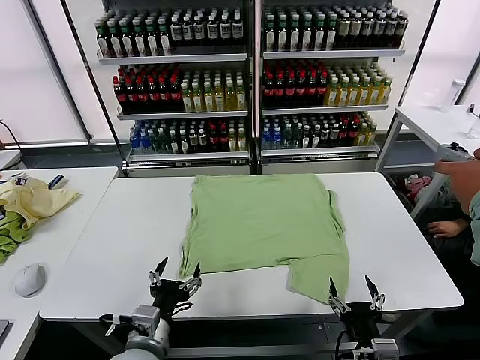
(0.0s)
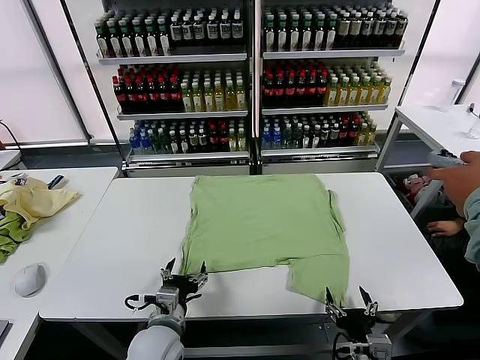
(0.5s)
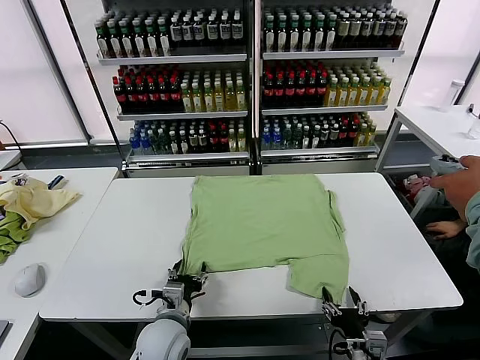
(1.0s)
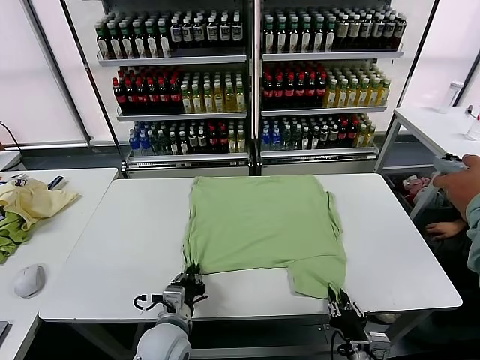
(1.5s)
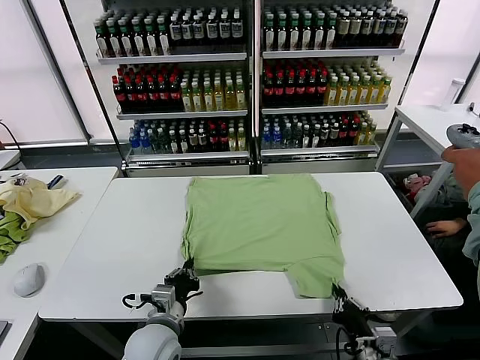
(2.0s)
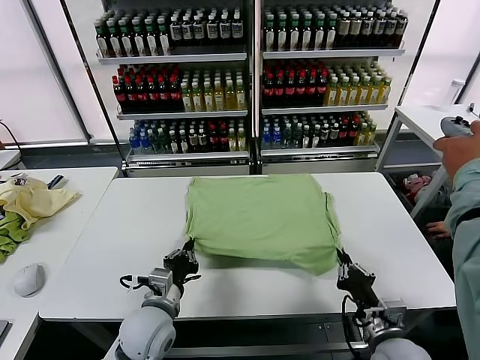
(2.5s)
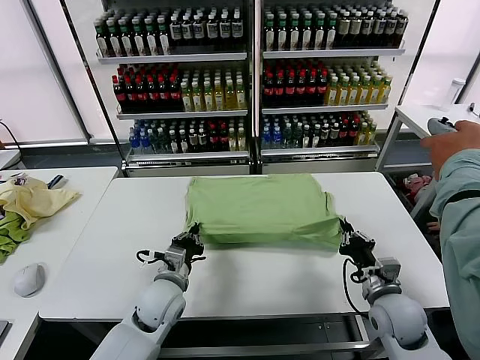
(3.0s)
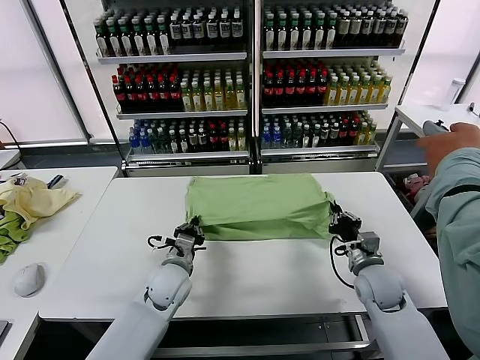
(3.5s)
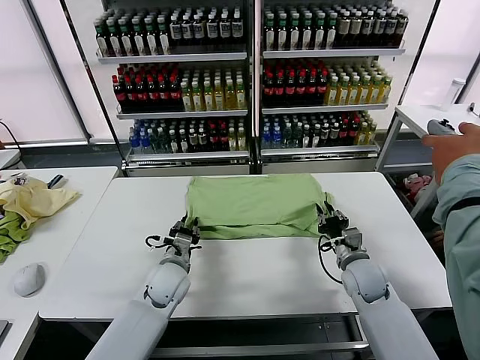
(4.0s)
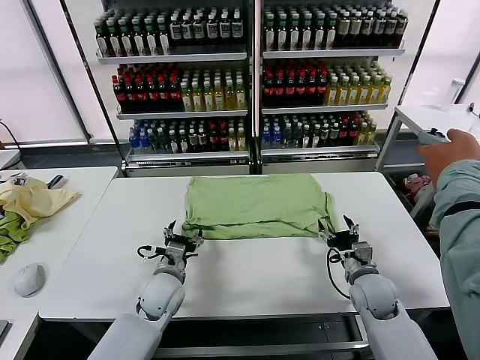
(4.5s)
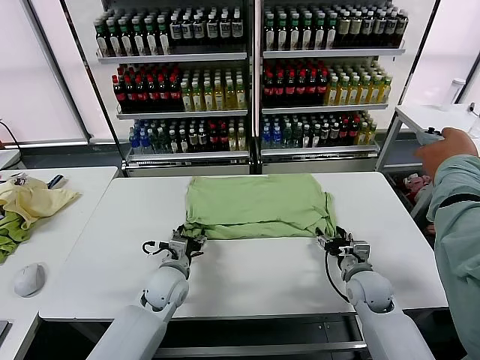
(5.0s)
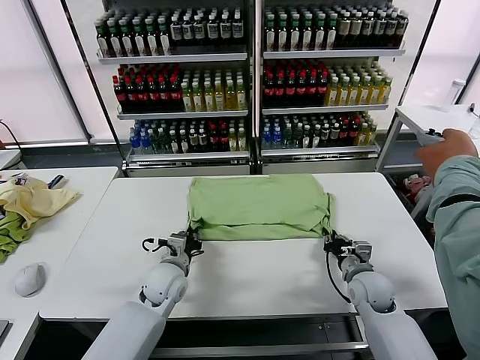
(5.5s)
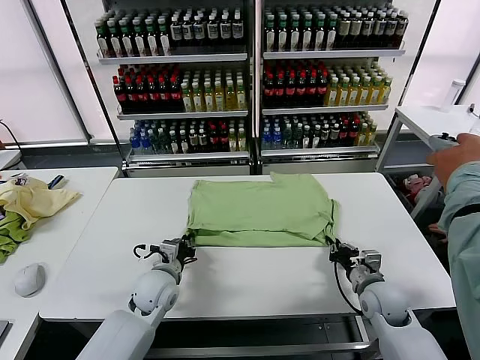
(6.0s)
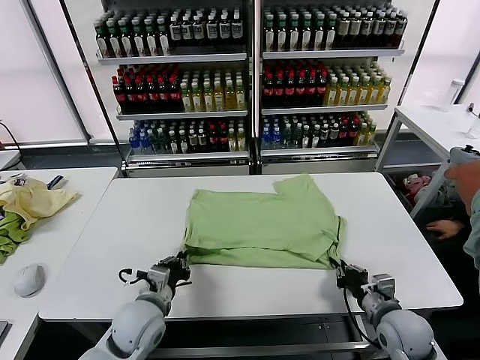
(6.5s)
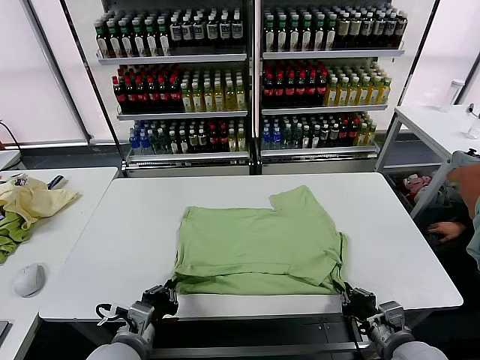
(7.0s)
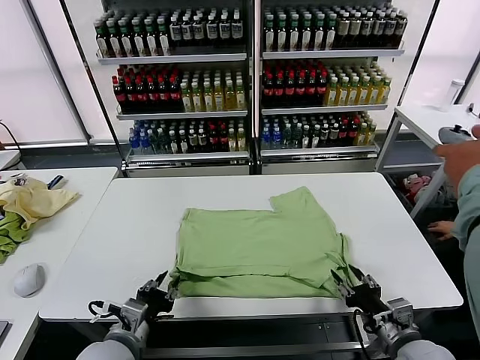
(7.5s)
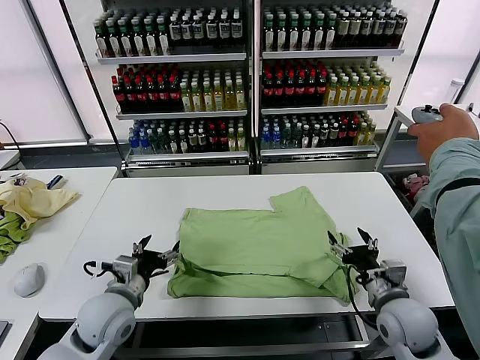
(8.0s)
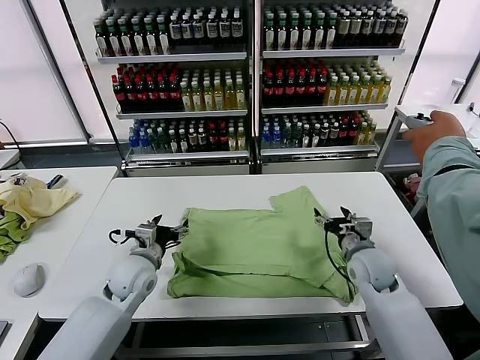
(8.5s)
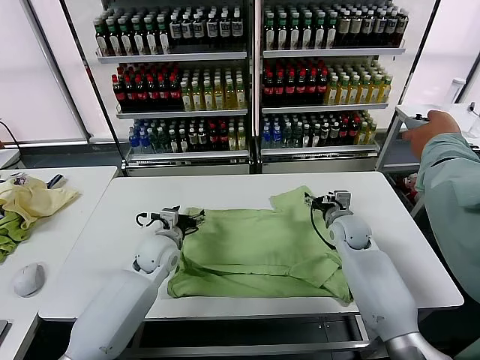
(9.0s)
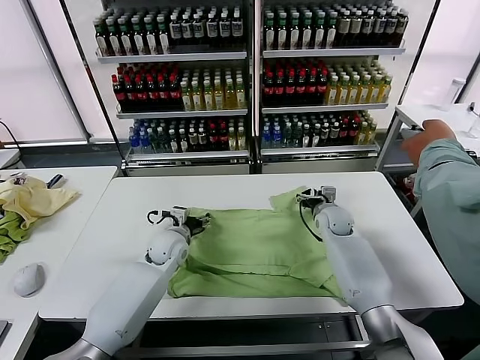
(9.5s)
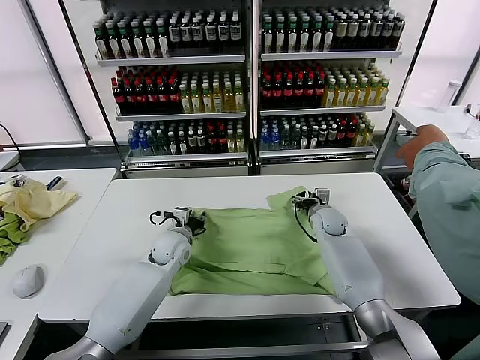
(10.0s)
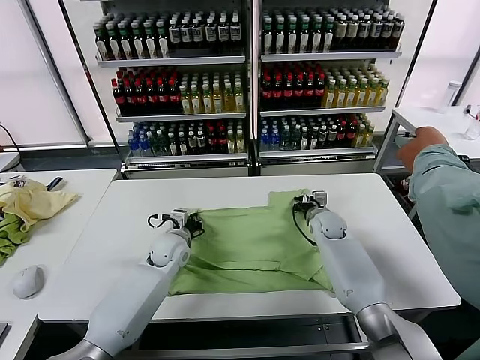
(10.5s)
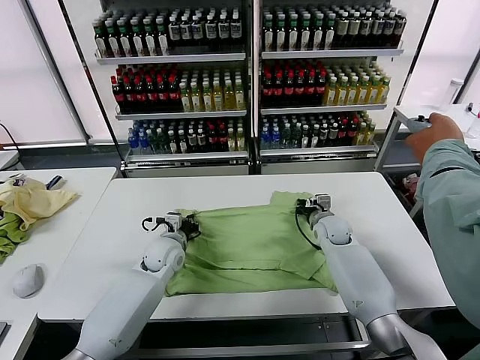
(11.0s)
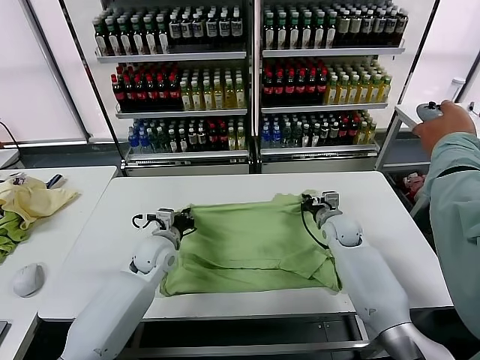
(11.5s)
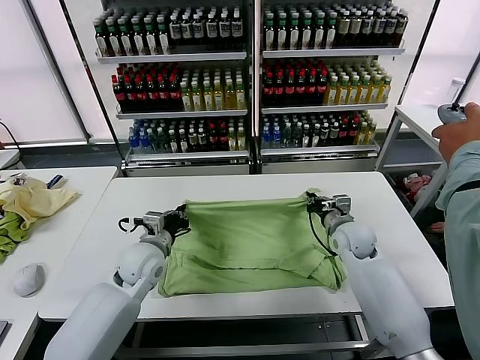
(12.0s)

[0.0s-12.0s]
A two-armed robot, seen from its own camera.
Task of the whole recording: fold and organize the clothes.
Step, 0.0s to 1.5s: use both grippers simultaneously to clamp the lower edge of the clothing fabric.
Step, 2.0s to 4.0s: use both grippers to drag the lower edge of the fabric forward and fold it over the upper edge.
Step, 4.5s to 7.5s: Drag the clothes downward with both gripper.
Step, 8.0s to 10.5s: use both grippers simultaneously to clamp the upper edge of the clothing fabric.
2.0s to 4.0s: The grippers both shift forward by about 15 cm. The right gripper opens; the left gripper opens its fingers.
4.0s to 6.0s: The right gripper moves backward, roughly 5 cm, and closes its fingers. The left gripper closes.
6.0s to 8.0s: The right gripper heads upward, covering some 5 cm, goes backward and returns, some 15 cm each way, and opens its fingers, while the left gripper goes roughly 10 cm backward, upward and to the left, and opens its fingers.
8.0s to 10.0s: Both grippers travel together forward, about 25 cm. The left gripper closes its fingers.
10.0s to 12.0s: The grippers both shift backward and upward by about 10 cm. The left gripper closes its fingers. The right gripper closes up.

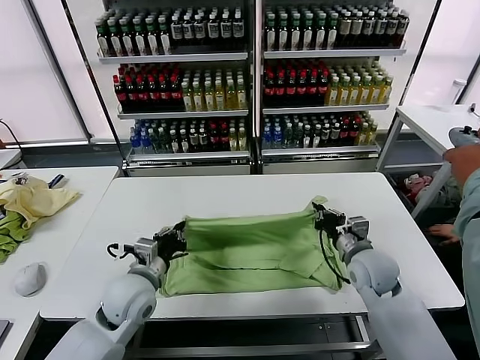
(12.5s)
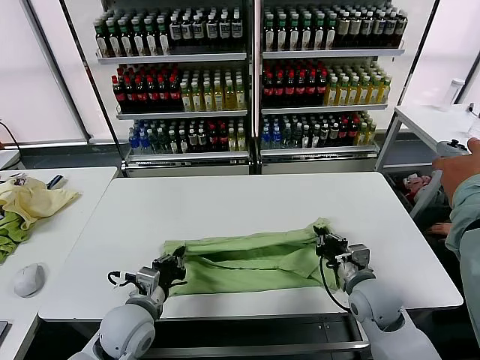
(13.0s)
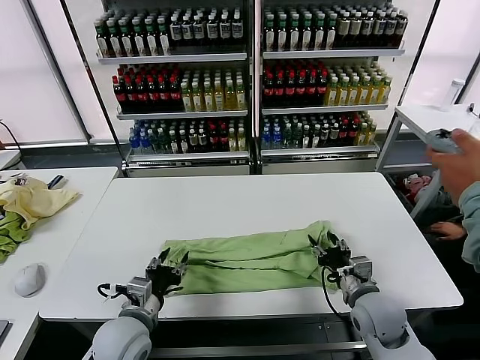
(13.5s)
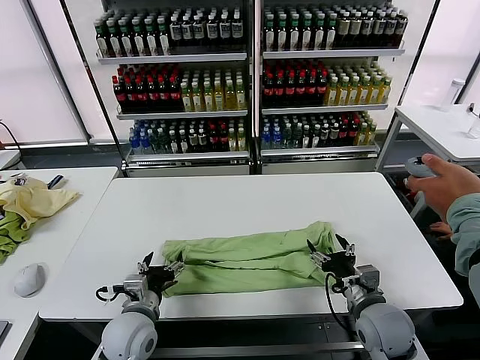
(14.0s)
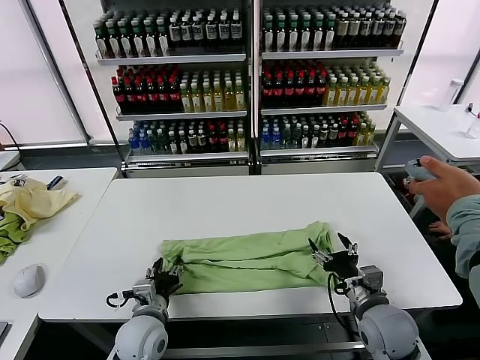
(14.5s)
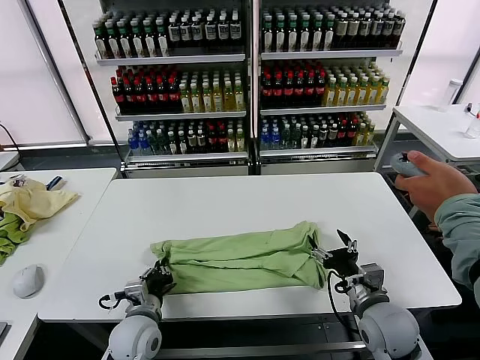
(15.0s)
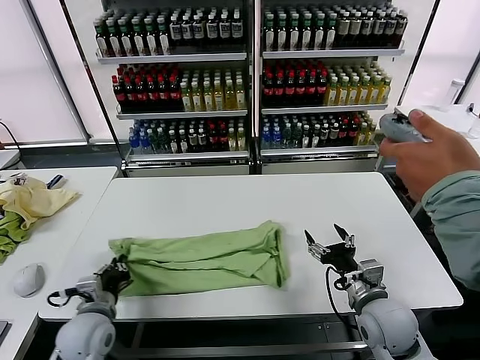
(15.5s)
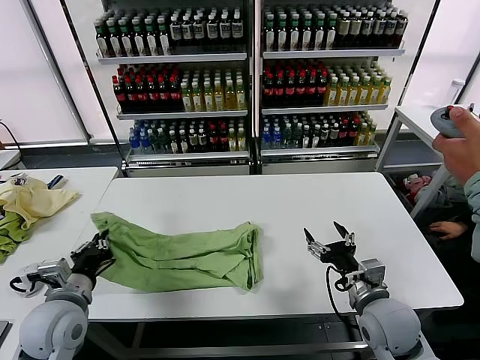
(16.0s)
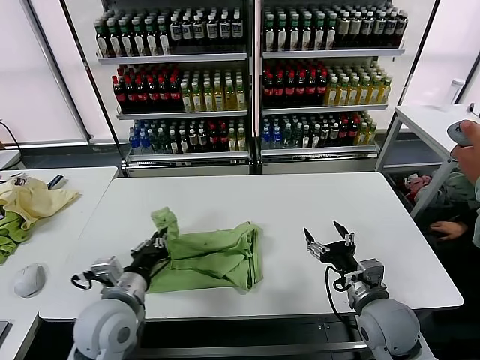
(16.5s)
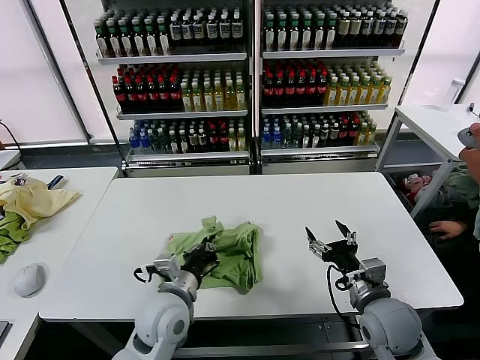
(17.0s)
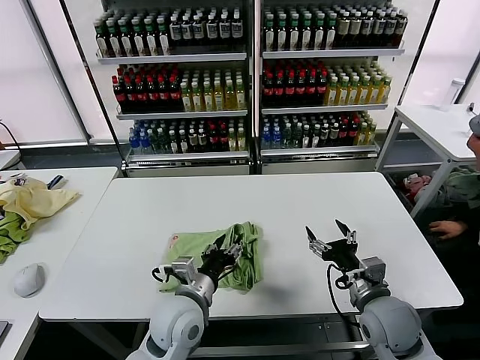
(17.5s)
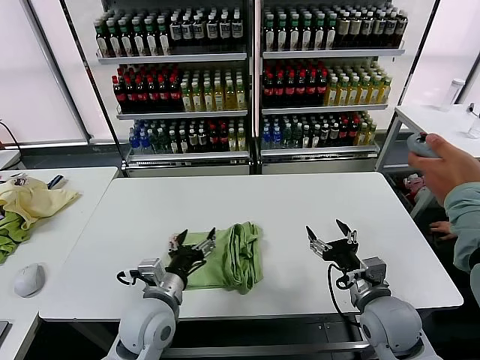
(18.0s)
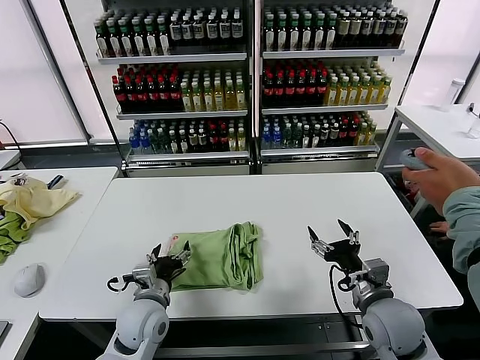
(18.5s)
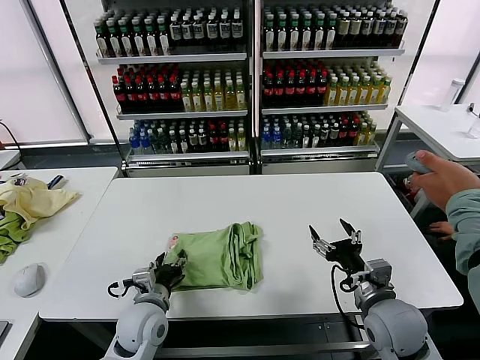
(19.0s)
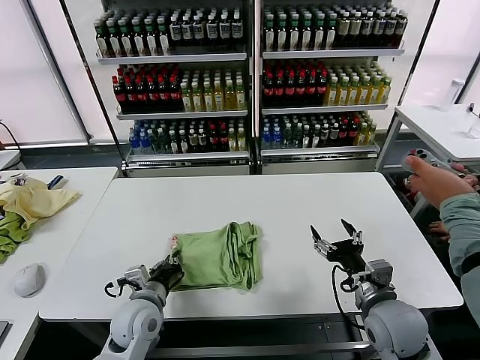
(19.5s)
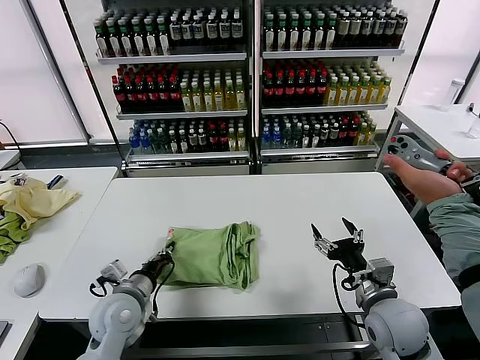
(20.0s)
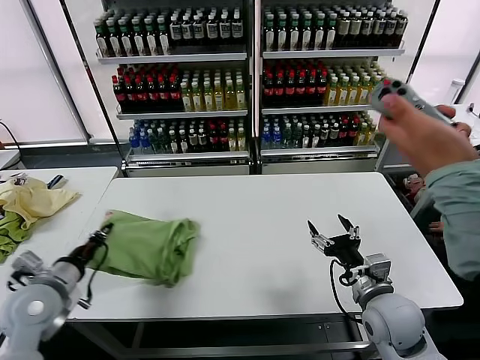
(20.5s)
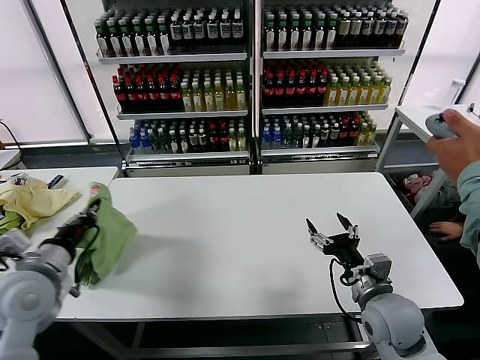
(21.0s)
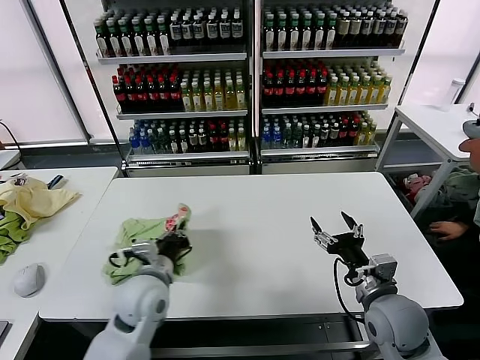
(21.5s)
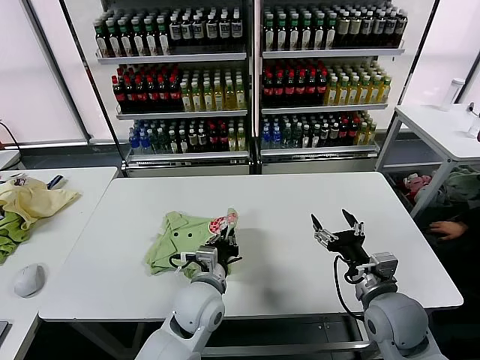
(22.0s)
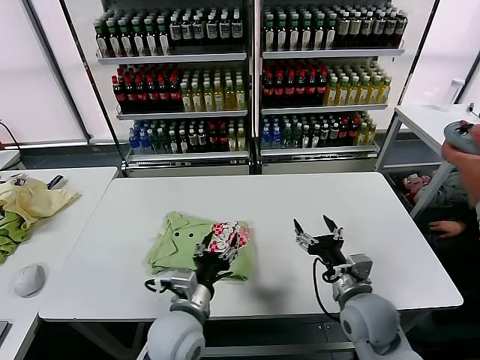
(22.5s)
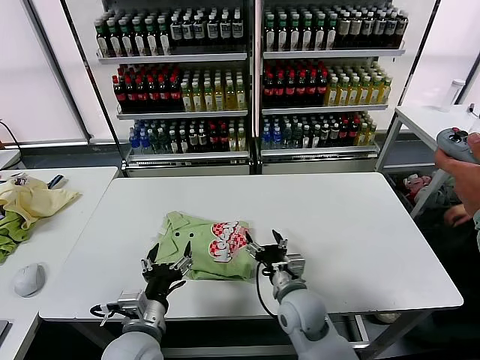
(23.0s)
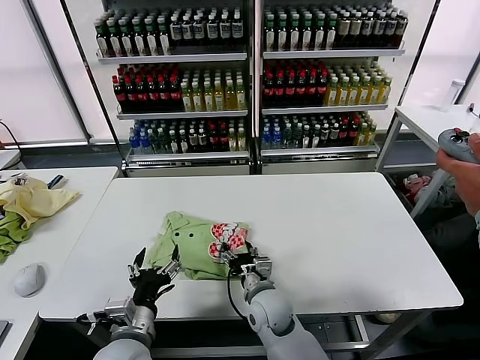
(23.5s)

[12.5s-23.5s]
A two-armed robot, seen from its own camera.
Task of the whole recording: fold and organize the clothes.
Step, 14.0s to 14.5s: use the left gripper to clamp the left edge of the fabric.
Step, 15.5s to 17.0s: use the left gripper to drag the left edge of the fabric to the left and folds it over the right edge.
Step, 18.0s to 22.0s: Flip the folded clothes over with left gripper.
12.5s to 14.5s: The left gripper is displaced downward and backward by approximately 10 cm, and opens up; the right gripper travels backward by some 10 cm, and opens up.
14.5s to 16.0s: The left gripper moves to the left and upward, approximately 15 cm, and closes.
16.0s to 18.0s: The left gripper shifts about 15 cm to the right, and opens its fingers.
18.0s to 20.0s: The left gripper travels to the left by approximately 10 cm, and closes up.
20.0s to 21.5s: The left gripper moves some 10 cm to the left and comes back.
21.5s to 23.5s: The right gripper moves to the left and downward, roughly 25 cm, while the left gripper is displaced backward by about 10 cm, reaches roughly 10 cm to the right, then returns, and opens.

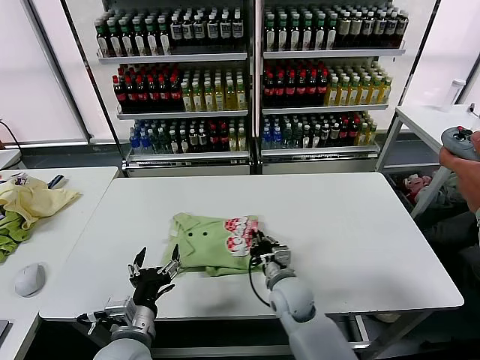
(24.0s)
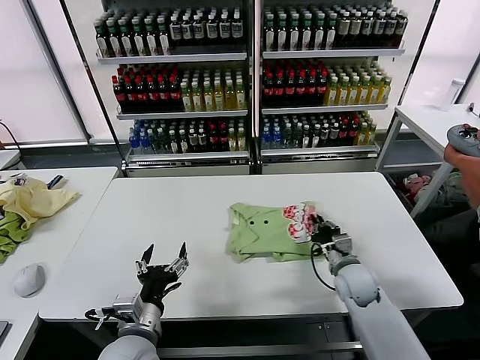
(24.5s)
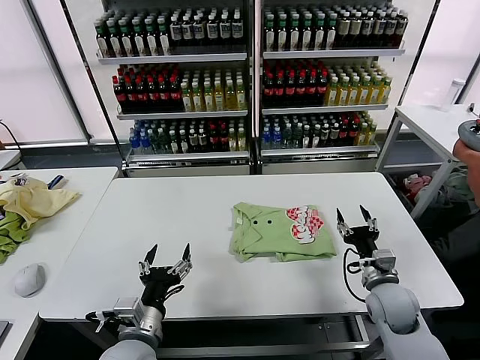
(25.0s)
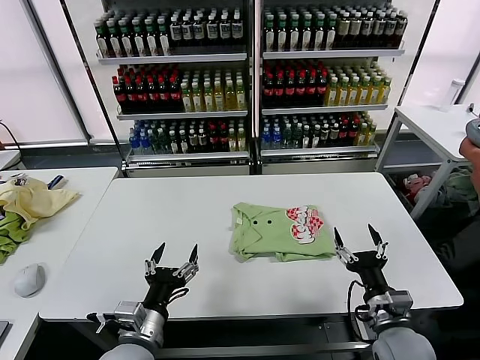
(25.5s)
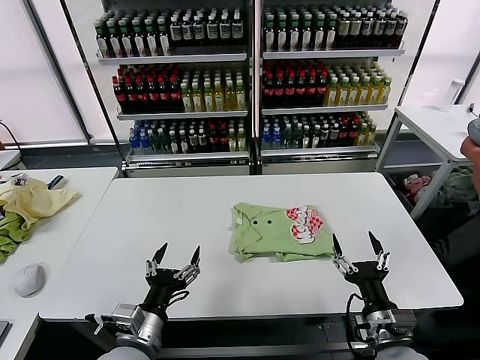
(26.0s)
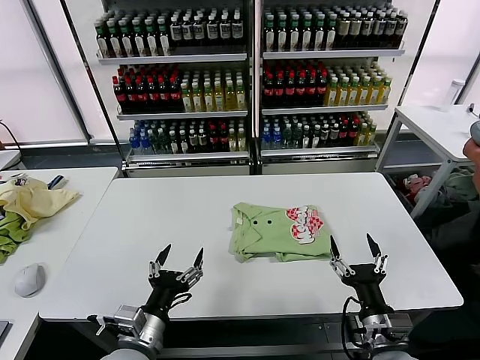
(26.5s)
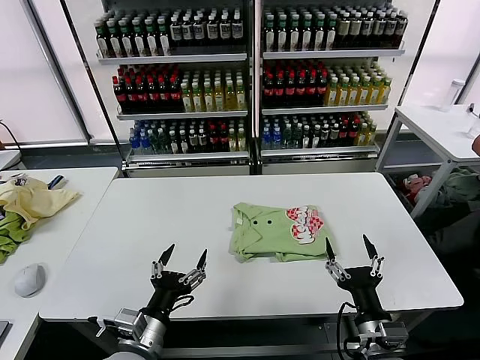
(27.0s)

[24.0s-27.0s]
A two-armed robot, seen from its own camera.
Task of the whole recording: fold and organize the clothes.
24.0s to 25.5s: The right gripper travels to the right and backward by roughly 25 cm, and opens its fingers.
25.5s to 27.0s: The right gripper moves backward, some 5 cm.
